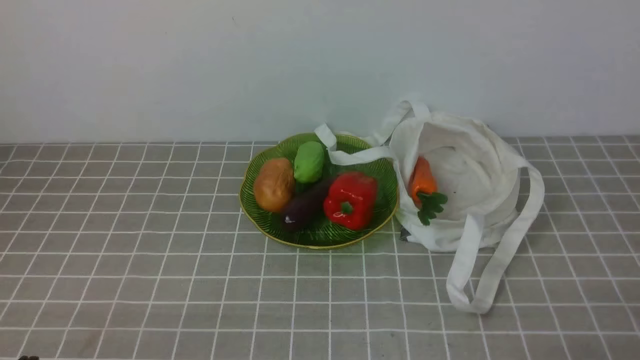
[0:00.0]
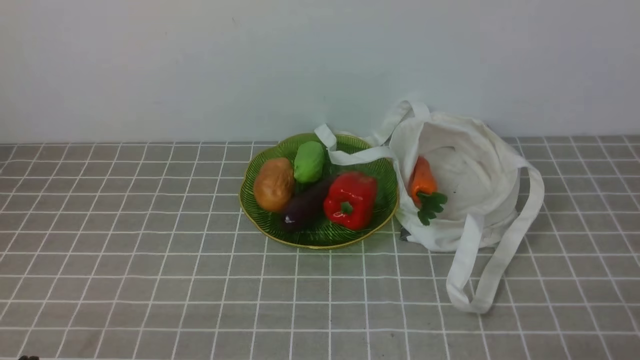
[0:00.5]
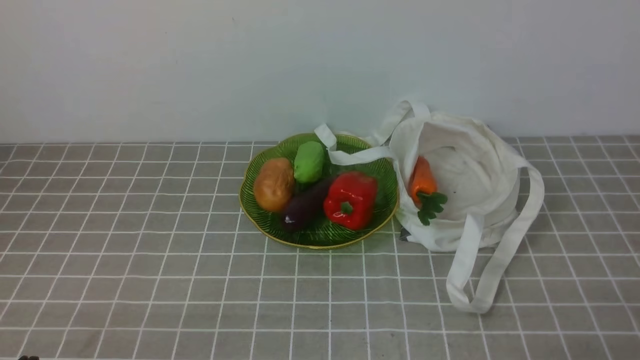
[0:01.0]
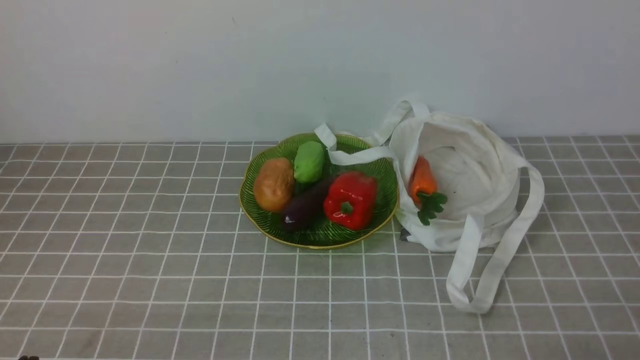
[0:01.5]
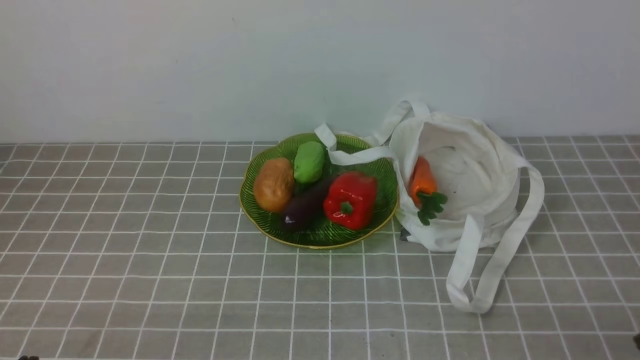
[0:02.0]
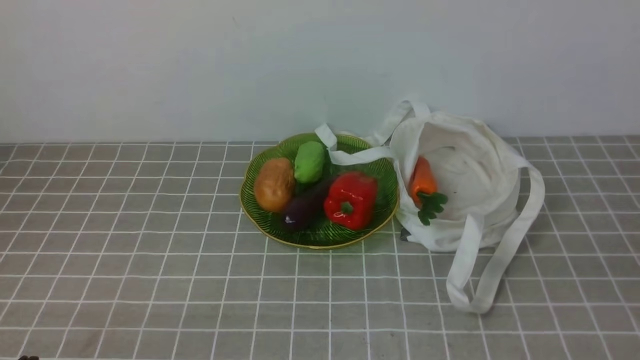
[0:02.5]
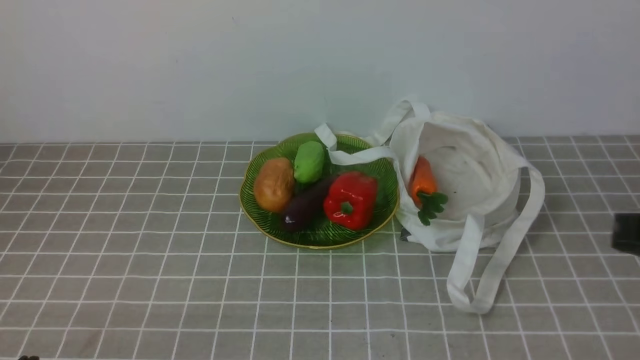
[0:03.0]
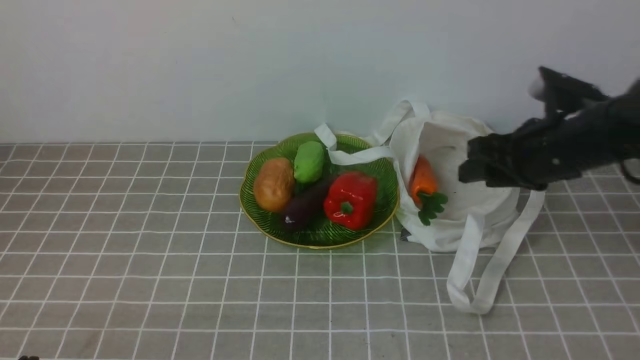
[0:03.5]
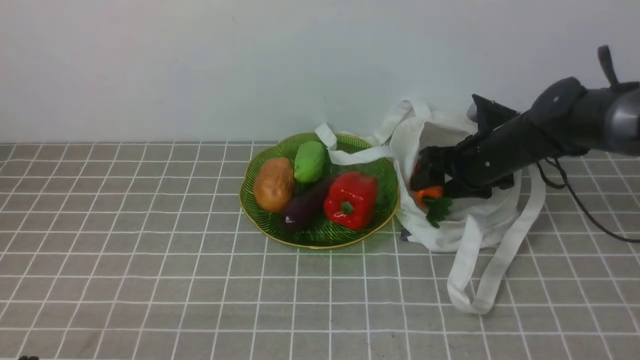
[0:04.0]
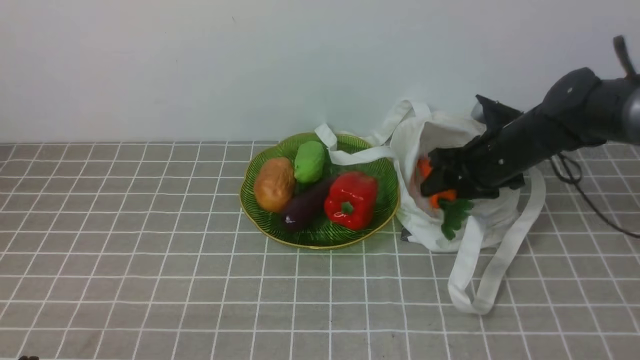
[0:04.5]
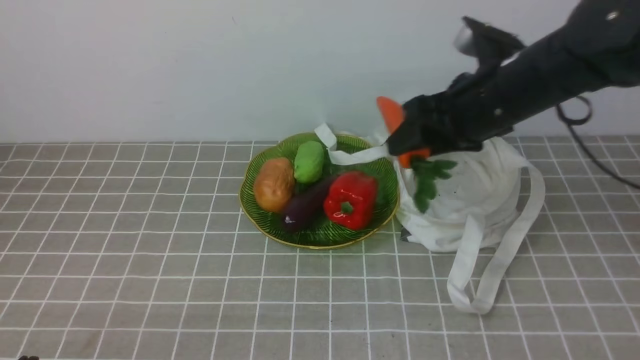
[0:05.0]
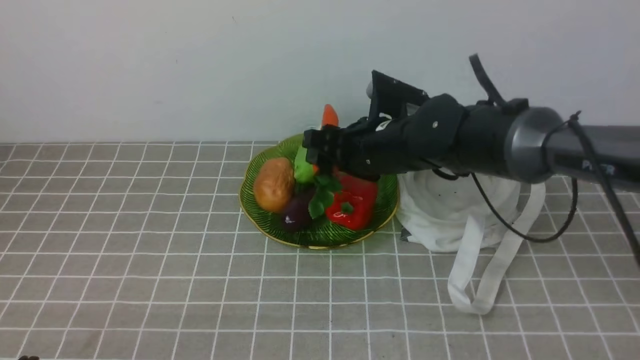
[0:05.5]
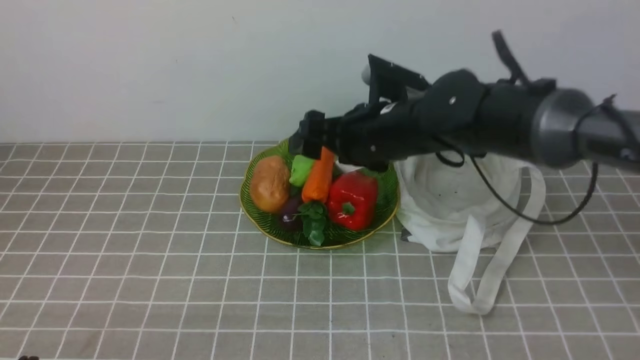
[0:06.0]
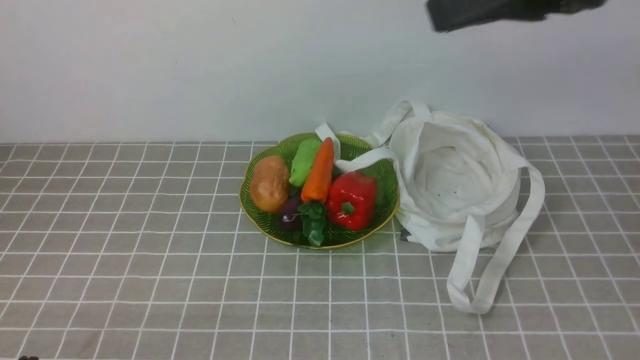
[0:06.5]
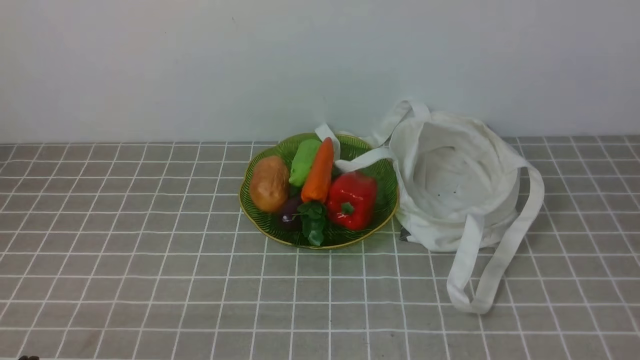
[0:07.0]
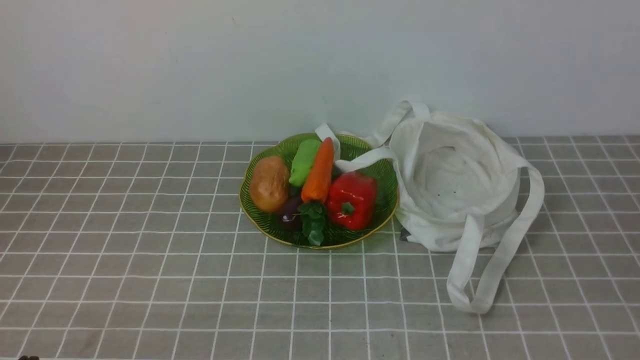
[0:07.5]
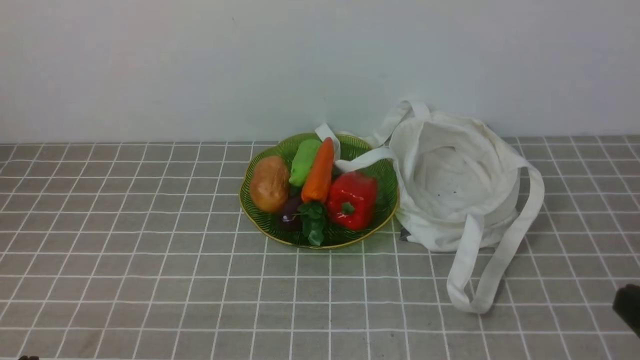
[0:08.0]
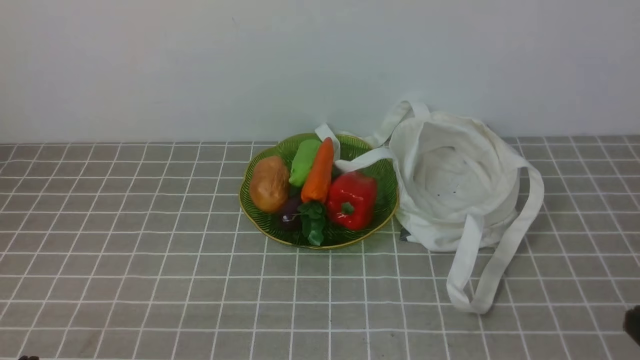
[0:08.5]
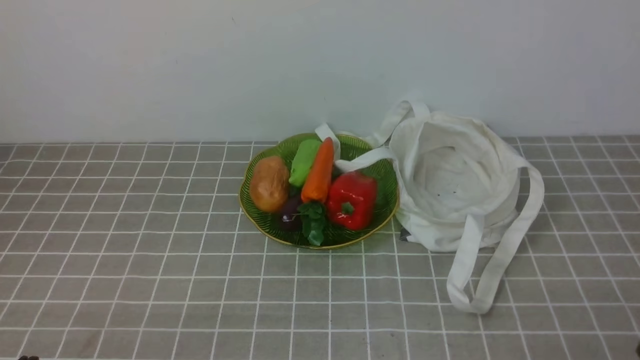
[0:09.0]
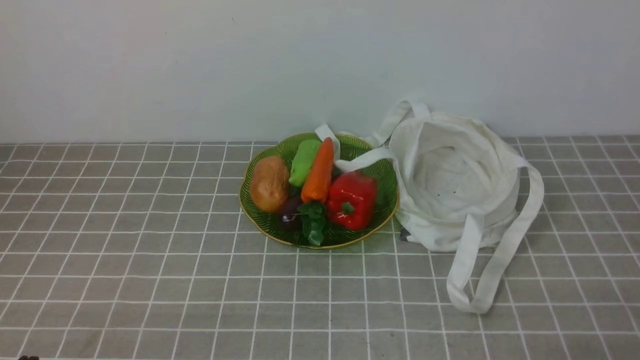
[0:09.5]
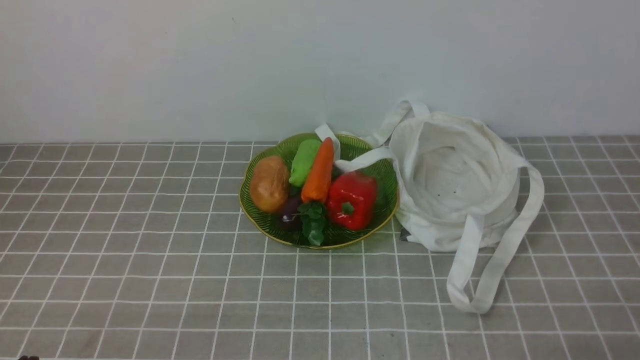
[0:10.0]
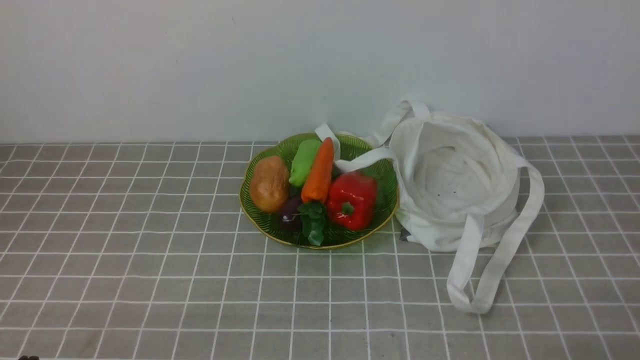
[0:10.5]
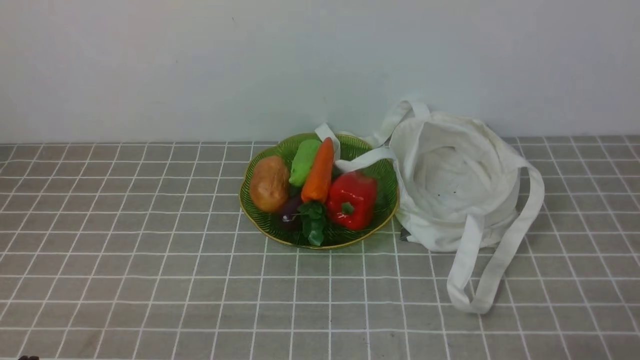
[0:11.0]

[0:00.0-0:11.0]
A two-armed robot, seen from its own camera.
Task of the whole recording: take vegetables from bag on grey coffee tablecloth place on plate.
Step, 0:00.0 to 0:04.0: Grasp the carrot with right gripper.
Step, 0:04.5 to 0:06.0: Place the carrot on the plate with right gripper.
0:02.0 to 0:03.5: The right gripper is displaced forward by some 30 cm, and opens its fingers.
0:03.5 to 0:05.5: The right gripper moves to the left, roughly 15 cm.
0:05.5 to 0:07.5: The right gripper travels backward and to the right by about 40 cm, and closes up.
